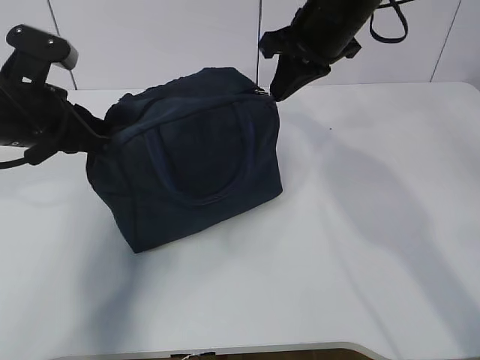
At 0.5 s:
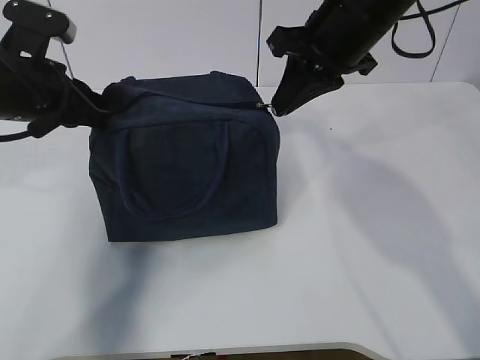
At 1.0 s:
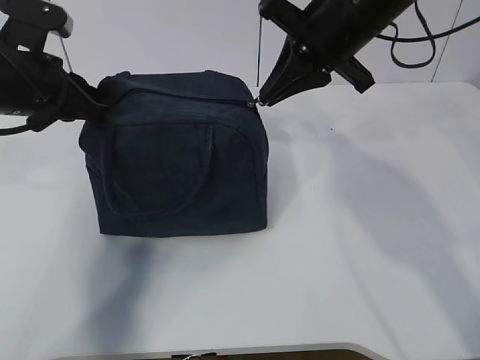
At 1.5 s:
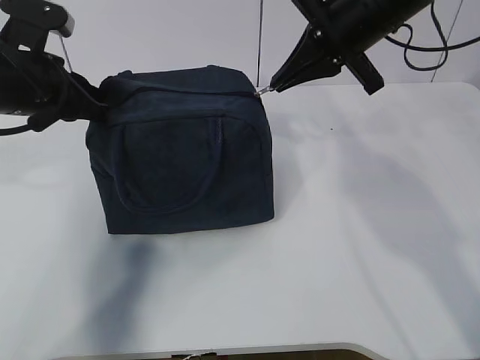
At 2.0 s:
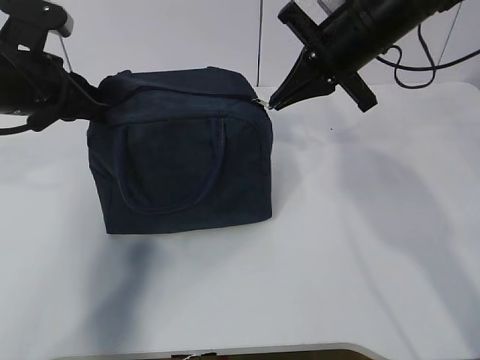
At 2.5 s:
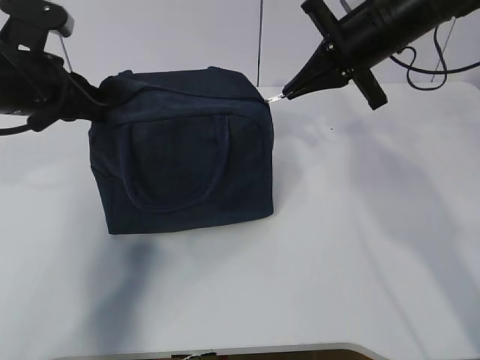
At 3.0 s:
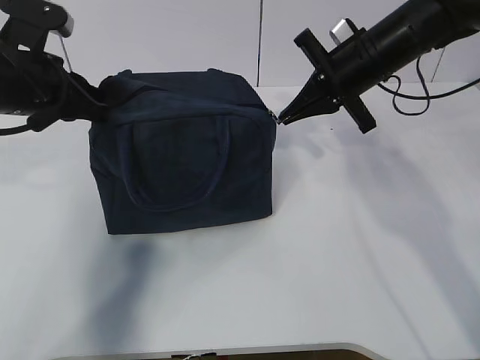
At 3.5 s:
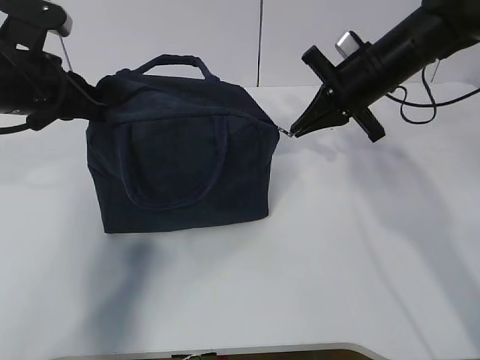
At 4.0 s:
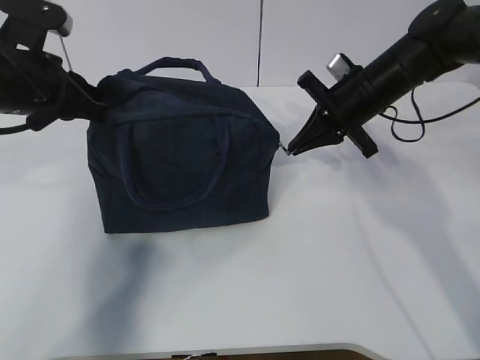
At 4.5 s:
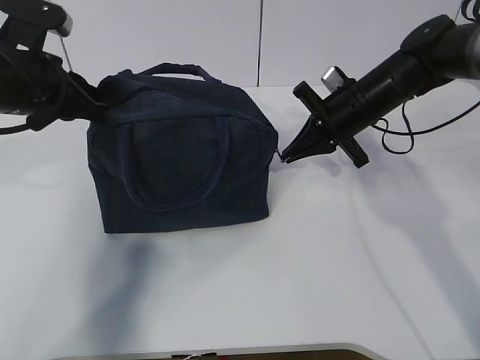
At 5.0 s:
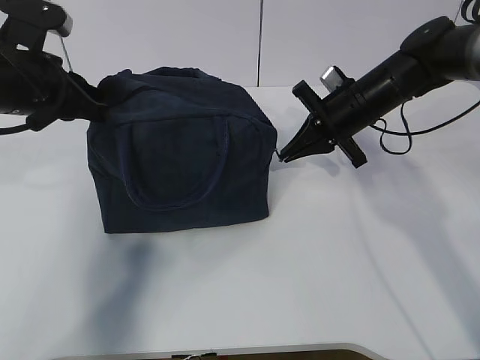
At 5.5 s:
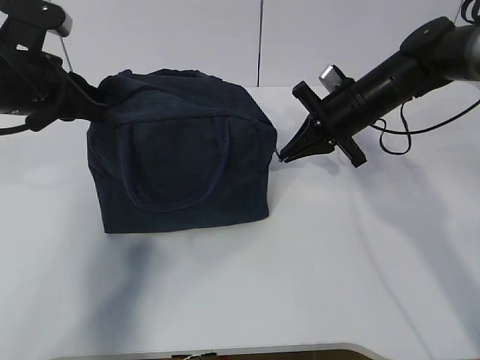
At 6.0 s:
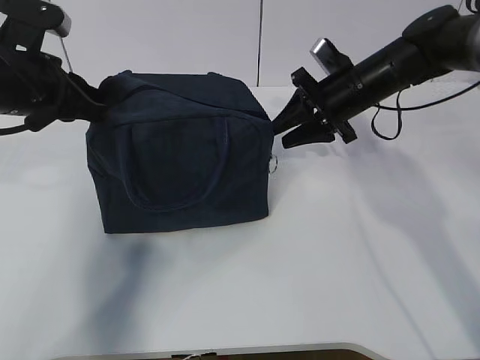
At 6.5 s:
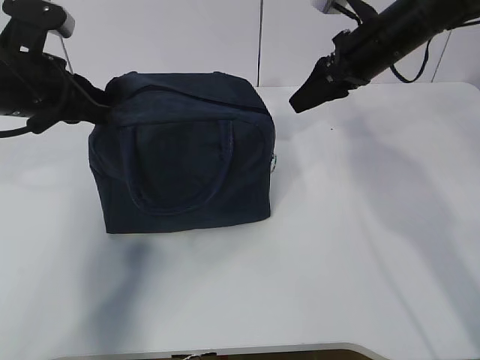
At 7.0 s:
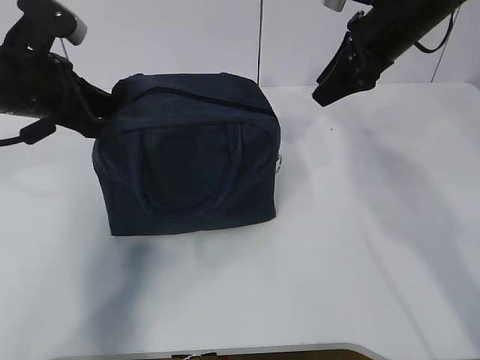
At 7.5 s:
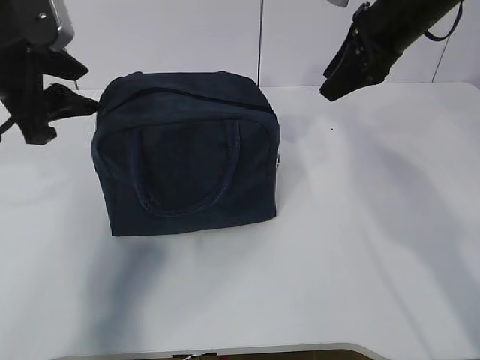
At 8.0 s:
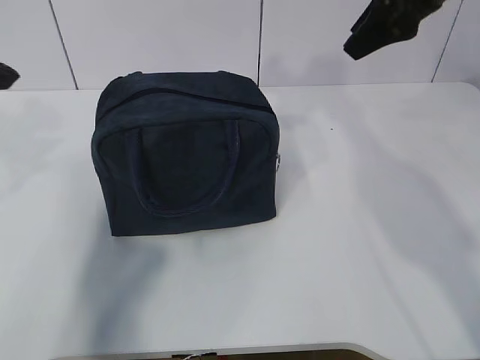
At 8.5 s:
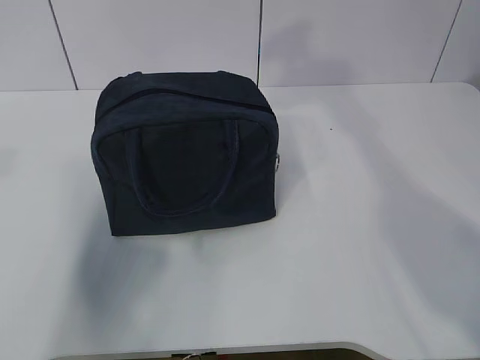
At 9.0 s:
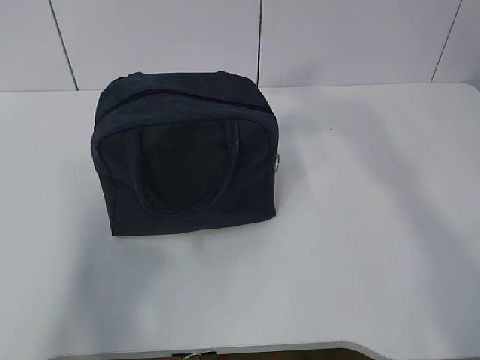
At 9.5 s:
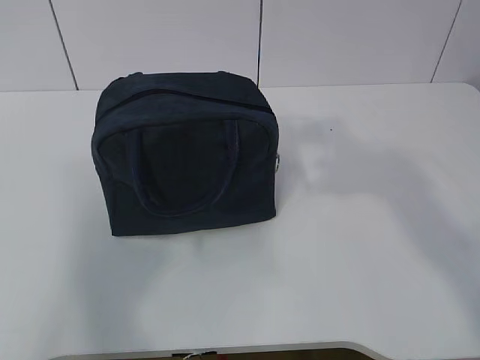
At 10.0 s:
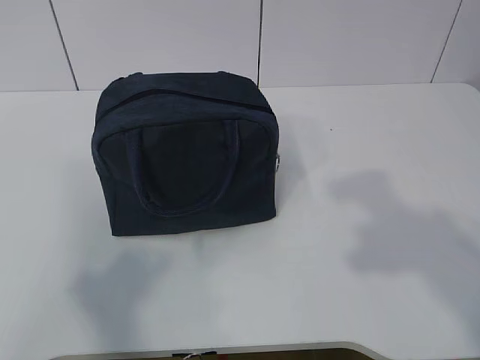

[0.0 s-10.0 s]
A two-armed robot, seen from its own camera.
2.0 to 4.0 s: The right gripper travels downward by about 10 cm.
4.0 to 6.0 s: The right gripper opens its fingers.
6.0 to 8.0 s: The right gripper heads upward and backward, covering some 20 cm; the left gripper goes approximately 15 cm upward, backward and to the left, and opens.
8.0 to 10.0 s: The two grippers go some 30 cm backward.

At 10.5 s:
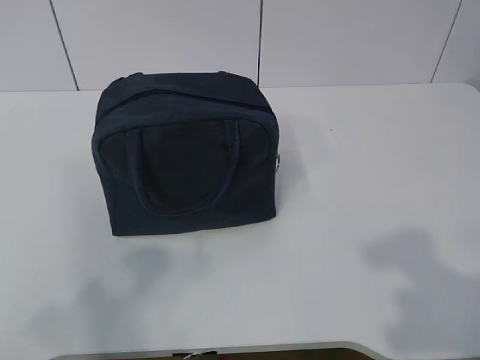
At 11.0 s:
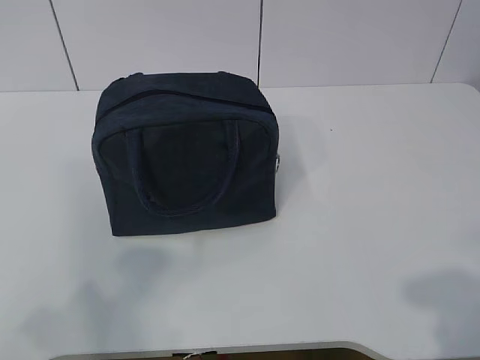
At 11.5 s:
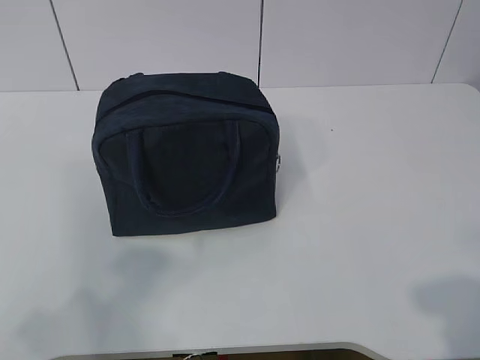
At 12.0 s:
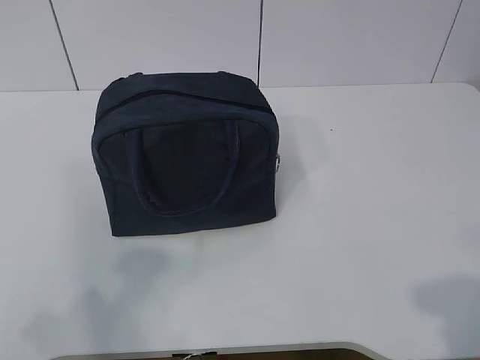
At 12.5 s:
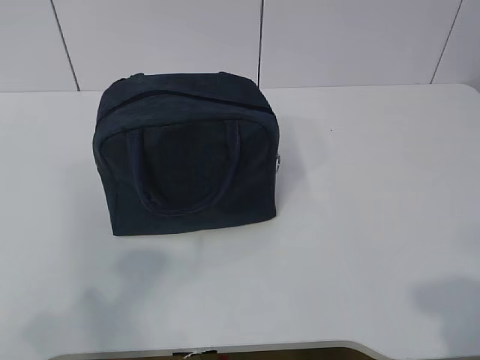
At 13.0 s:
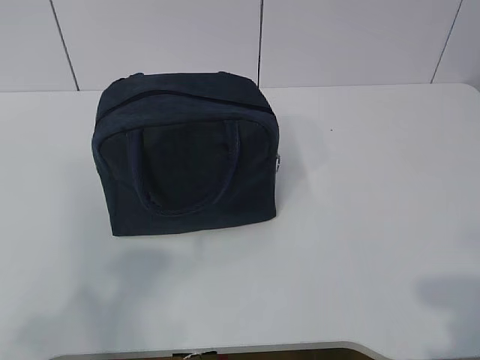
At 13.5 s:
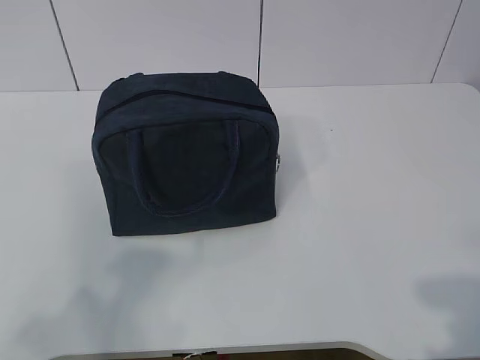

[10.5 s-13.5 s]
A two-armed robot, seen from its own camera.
10.5 to 12.0 s: The right gripper ends up roughly 5 cm from where it was.
